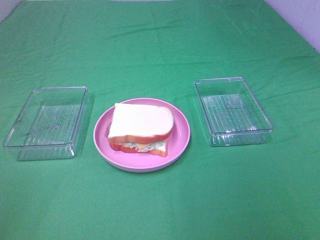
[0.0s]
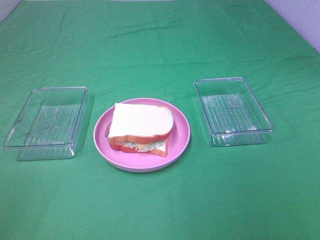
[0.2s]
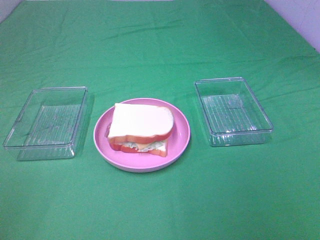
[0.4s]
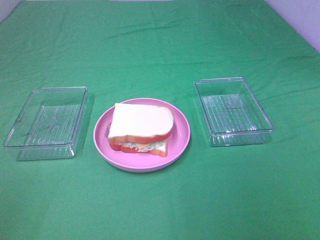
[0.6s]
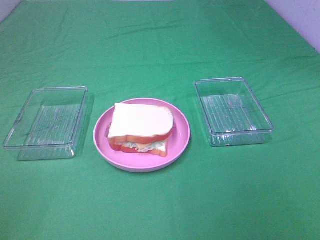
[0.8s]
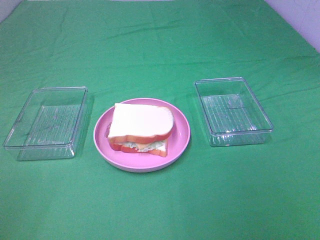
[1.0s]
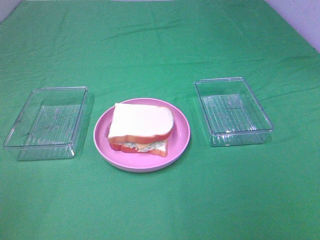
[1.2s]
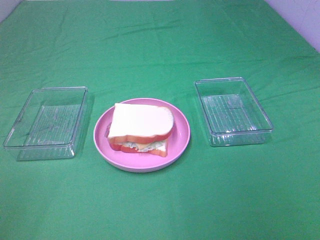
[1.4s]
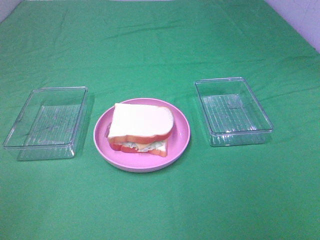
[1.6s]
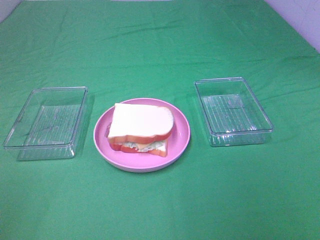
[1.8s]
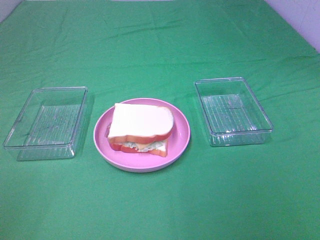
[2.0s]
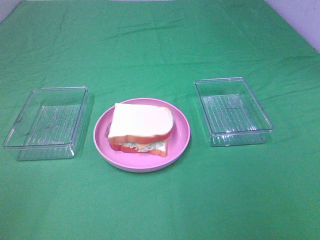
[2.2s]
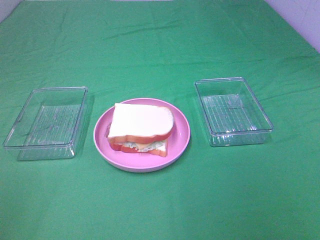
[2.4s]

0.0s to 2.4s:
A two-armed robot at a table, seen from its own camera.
Task of the whole recording: Make sandwiches.
0.0s to 2.4s: Neither gripper changes place.
